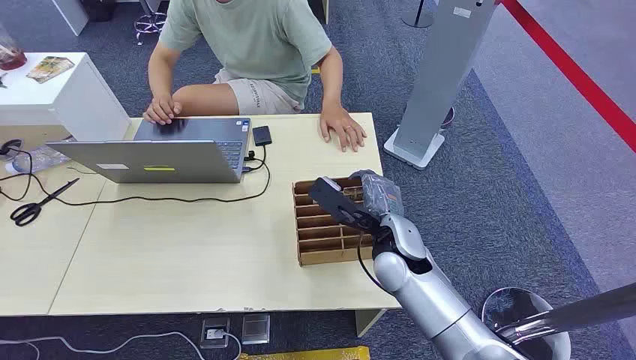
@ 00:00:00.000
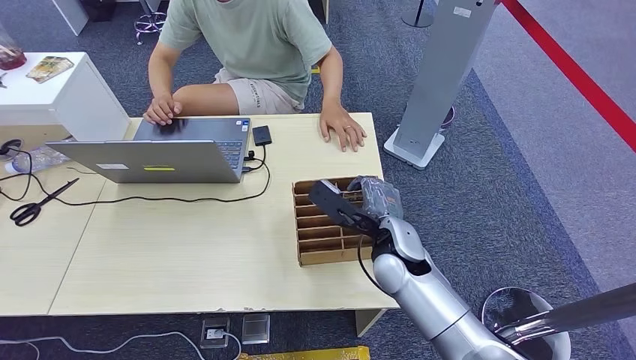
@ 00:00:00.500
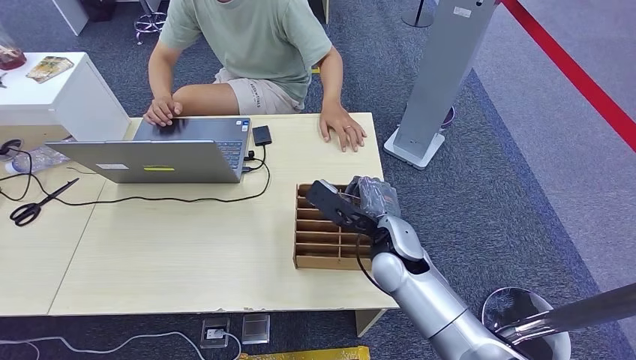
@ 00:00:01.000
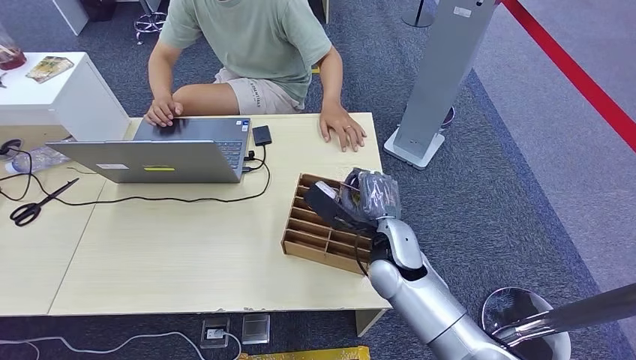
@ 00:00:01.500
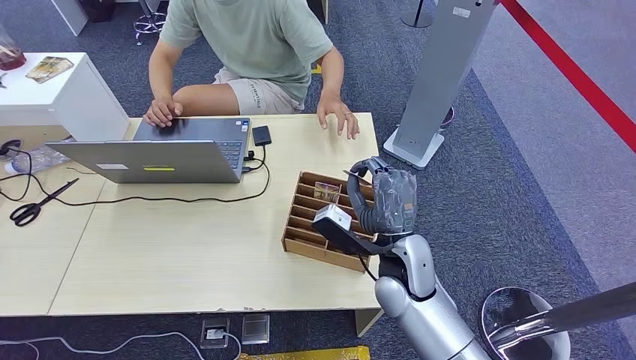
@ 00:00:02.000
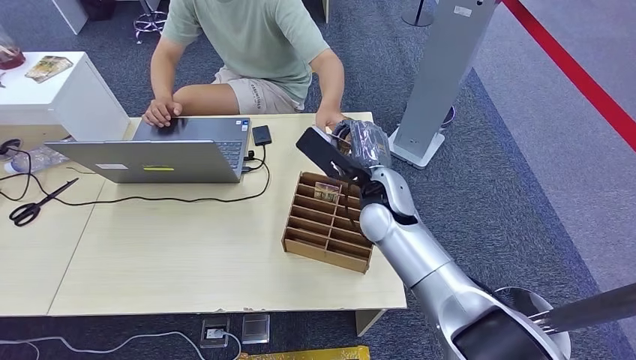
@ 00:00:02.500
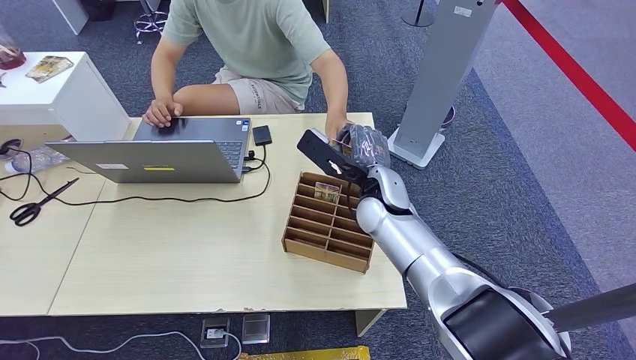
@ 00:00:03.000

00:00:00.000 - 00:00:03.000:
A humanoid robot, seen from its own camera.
Step, 00:00:00.000 - 00:00:01.500: Pick up the room card from the card holder.
Step, 00:00:02.500 - 00:00:03.000: Hand the room card to the target.
00:00:01.500 - 00:00:03.000: The right hand moves forward, some 10 cm.
